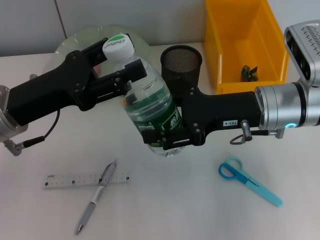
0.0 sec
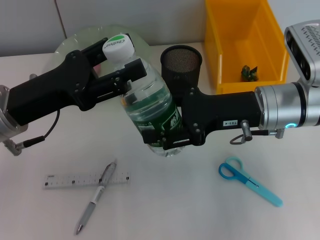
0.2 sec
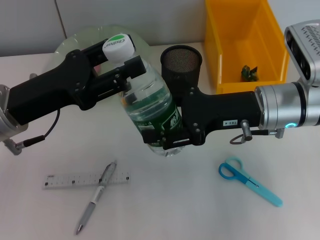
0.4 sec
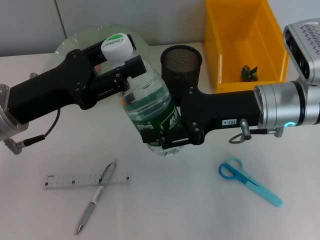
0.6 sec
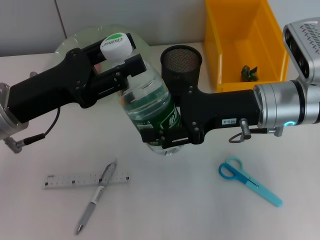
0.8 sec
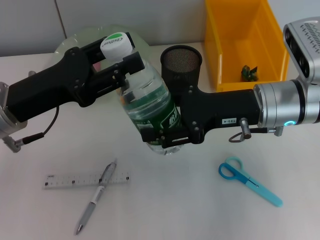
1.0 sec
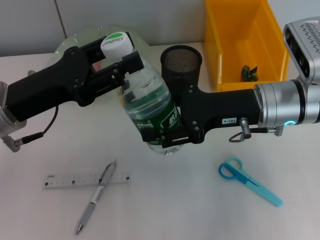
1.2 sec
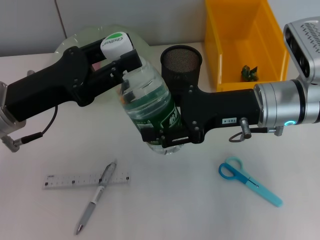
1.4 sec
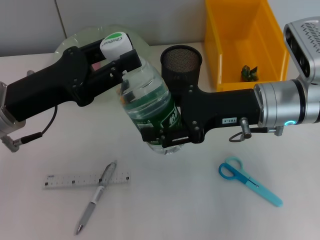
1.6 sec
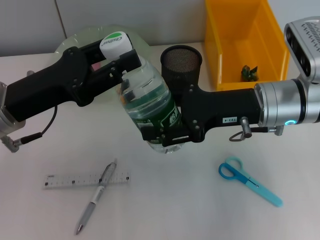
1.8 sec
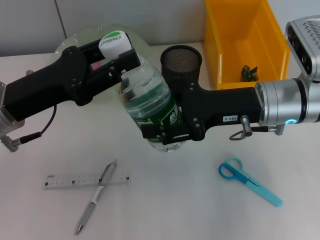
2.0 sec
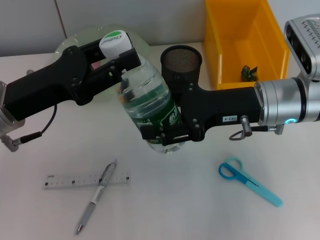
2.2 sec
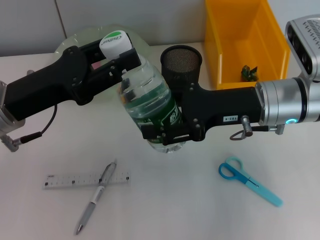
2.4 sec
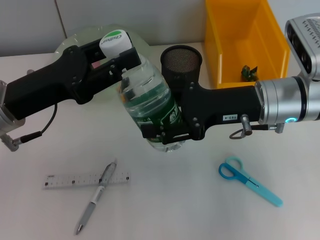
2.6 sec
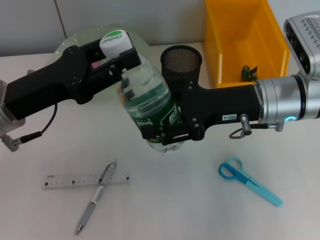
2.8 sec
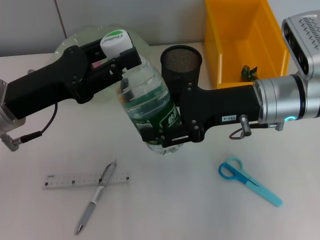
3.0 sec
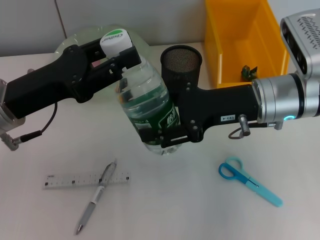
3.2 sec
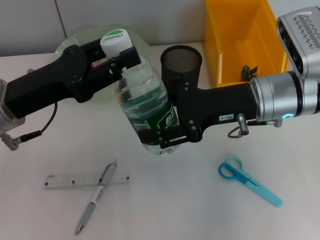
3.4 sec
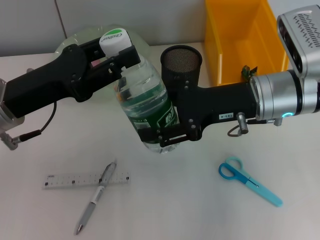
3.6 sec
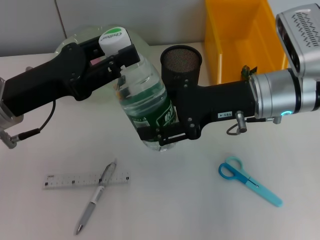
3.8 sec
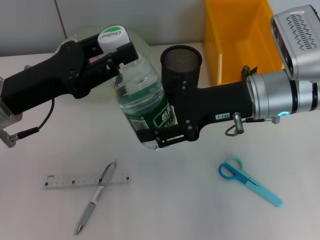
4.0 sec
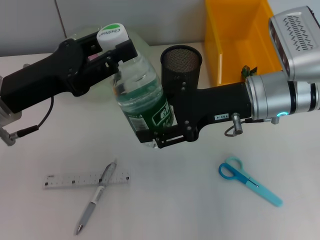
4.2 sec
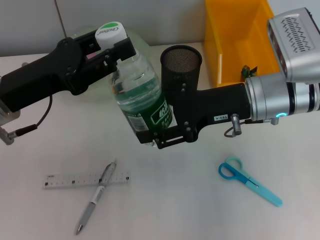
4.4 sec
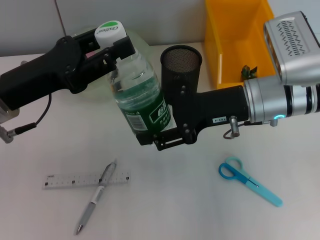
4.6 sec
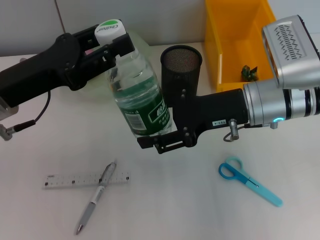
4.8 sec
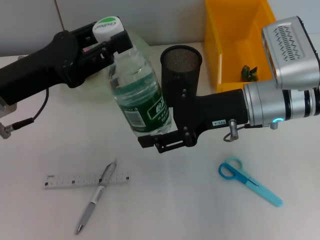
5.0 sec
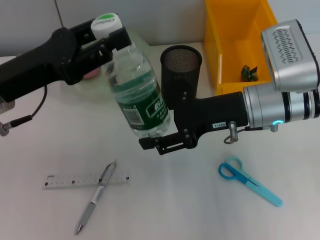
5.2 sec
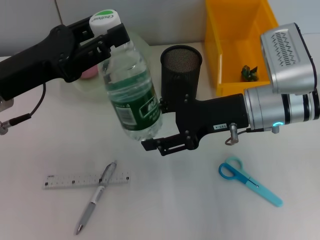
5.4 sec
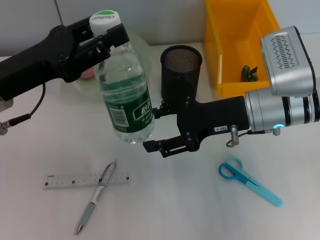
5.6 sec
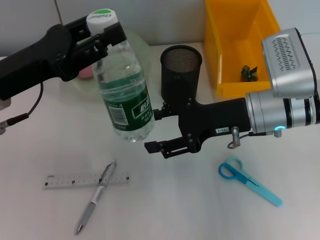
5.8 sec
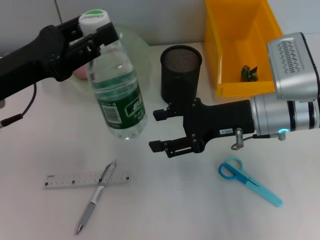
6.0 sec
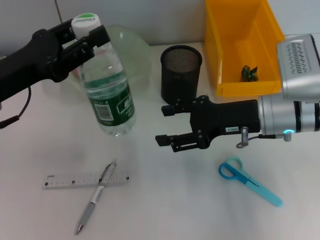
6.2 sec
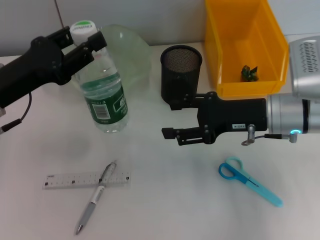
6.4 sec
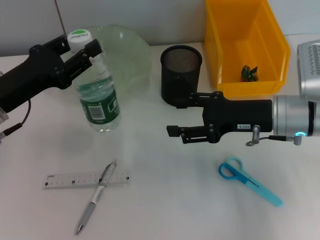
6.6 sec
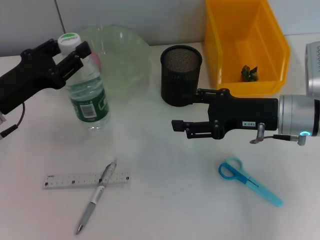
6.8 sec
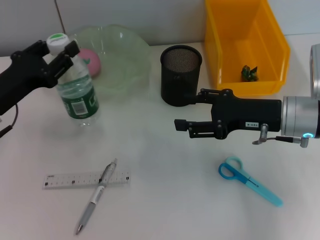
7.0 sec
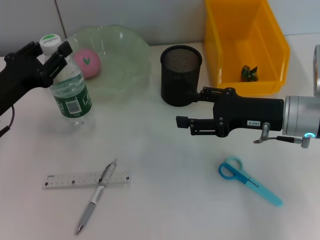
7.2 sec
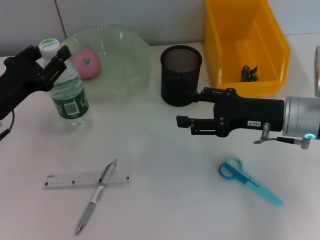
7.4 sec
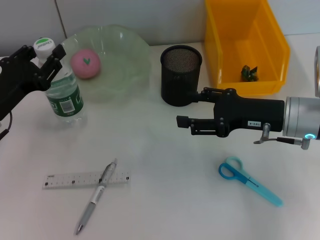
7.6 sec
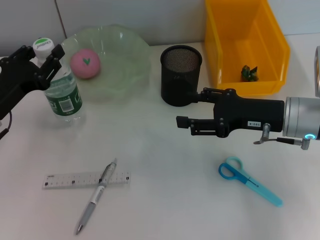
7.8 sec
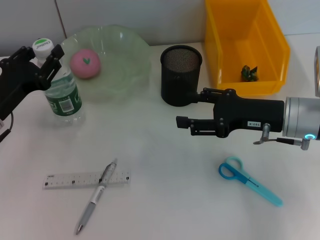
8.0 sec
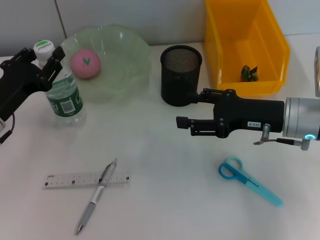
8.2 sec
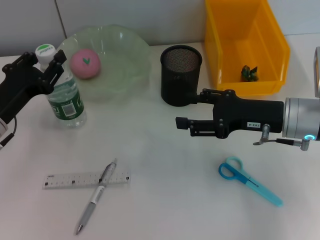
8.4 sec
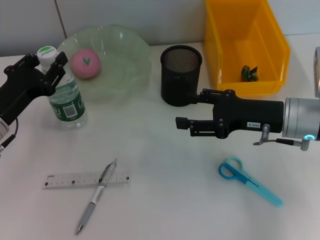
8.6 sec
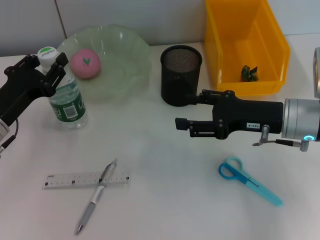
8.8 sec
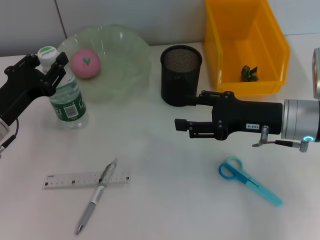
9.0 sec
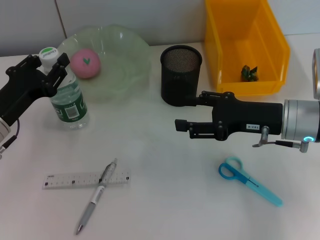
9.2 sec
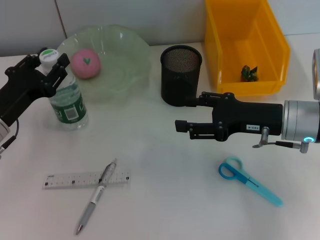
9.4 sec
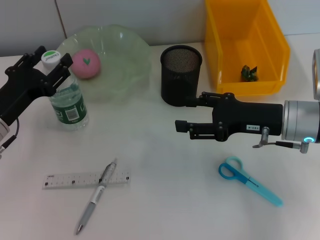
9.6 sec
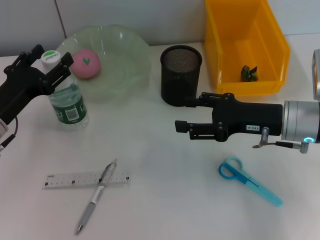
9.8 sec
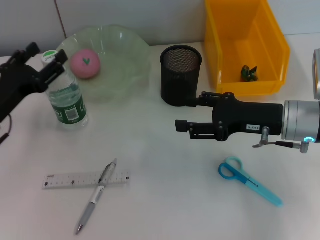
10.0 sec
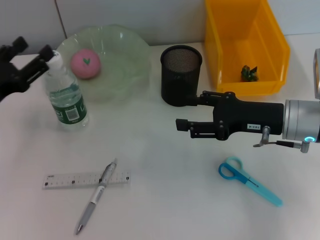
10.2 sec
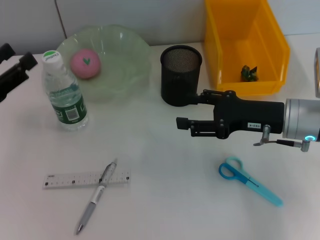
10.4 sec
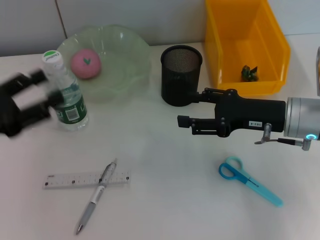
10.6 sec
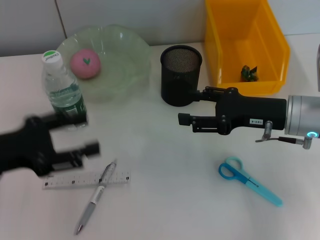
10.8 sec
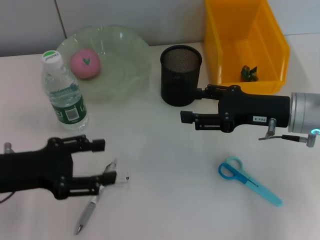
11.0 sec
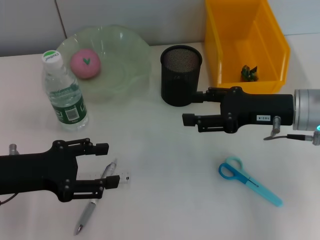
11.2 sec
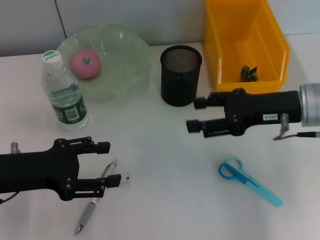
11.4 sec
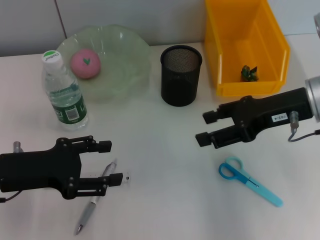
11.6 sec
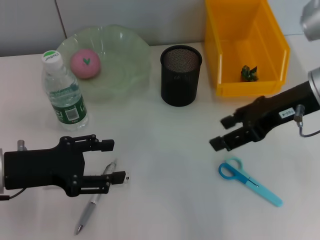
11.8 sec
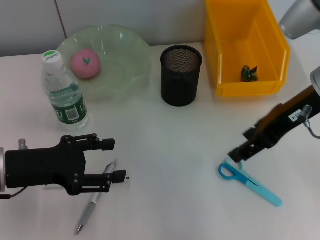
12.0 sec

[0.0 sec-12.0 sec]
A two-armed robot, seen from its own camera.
Step, 0.0 sec to 5.2 sec: Pass the water bottle from the right hand to the left hand.
Step, 5.6 sec to 9.8 sec: Place the water bottle on the table with the left hand.
0.0 sec to 1.6 sec: The left gripper closes its fingers.
1.6 sec to 3.0 sec: Neither gripper changes place.
3.0 sec to 4.4 sec: There are only small adjustments of the grippers.
6.0 sec to 7.6 sec: The left gripper travels downward by some 10 cm.
7.6 sec to 9.0 sec: There are only small adjustments of the grippers.
9.0 sec to 10.4 sec: The left gripper travels to the left by approximately 5 cm, and opens up.
10.4 sec to 12.0 sec: The left gripper heads to the right, covering roughly 5 cm. Meanwhile the right gripper travels upward by roughly 15 cm.

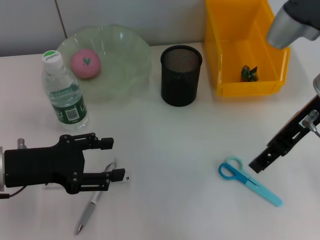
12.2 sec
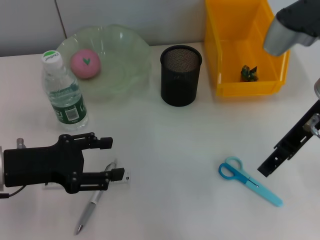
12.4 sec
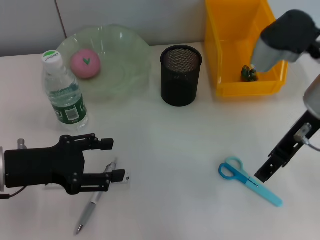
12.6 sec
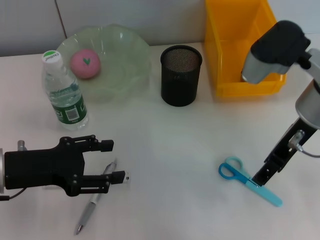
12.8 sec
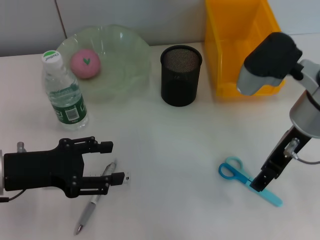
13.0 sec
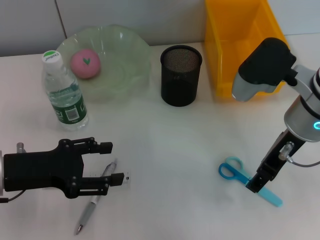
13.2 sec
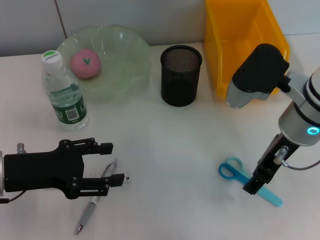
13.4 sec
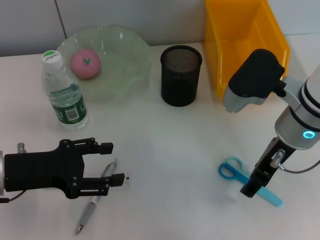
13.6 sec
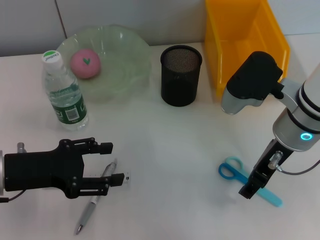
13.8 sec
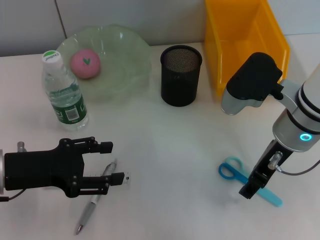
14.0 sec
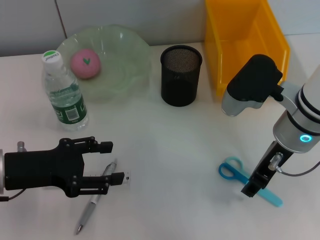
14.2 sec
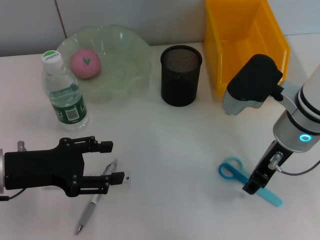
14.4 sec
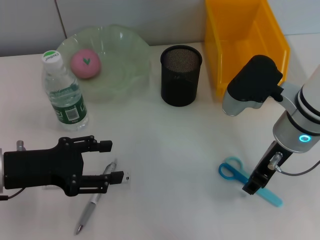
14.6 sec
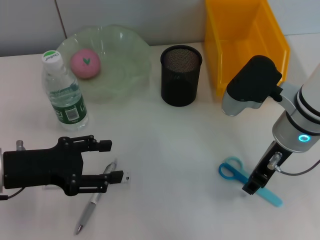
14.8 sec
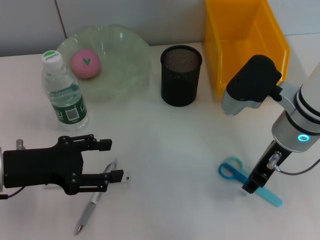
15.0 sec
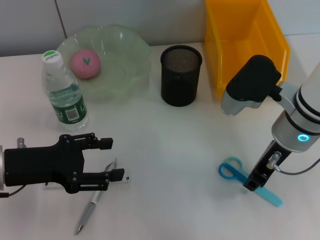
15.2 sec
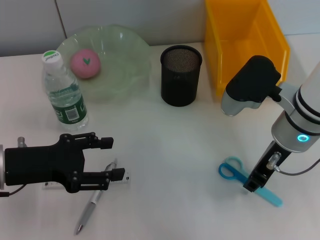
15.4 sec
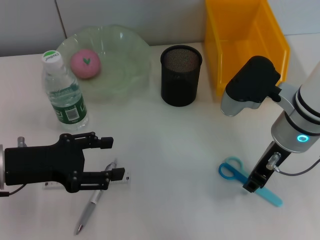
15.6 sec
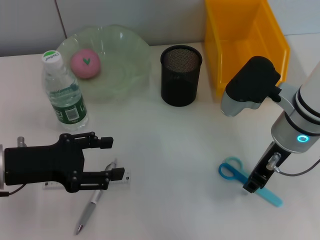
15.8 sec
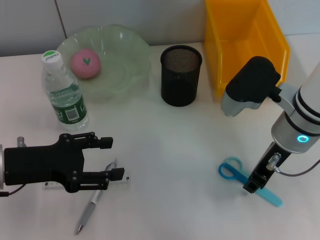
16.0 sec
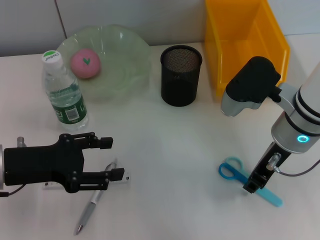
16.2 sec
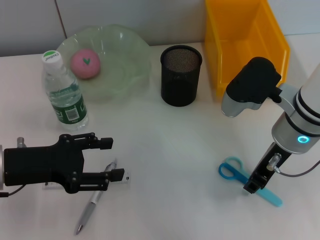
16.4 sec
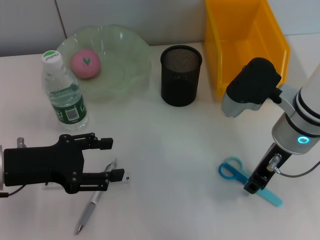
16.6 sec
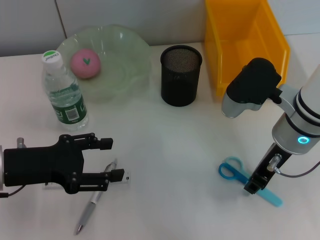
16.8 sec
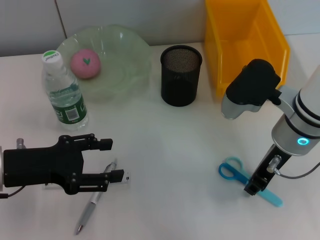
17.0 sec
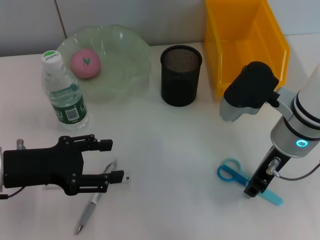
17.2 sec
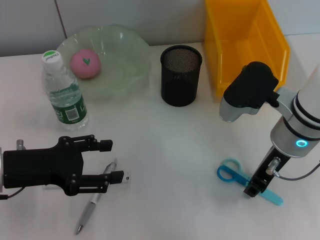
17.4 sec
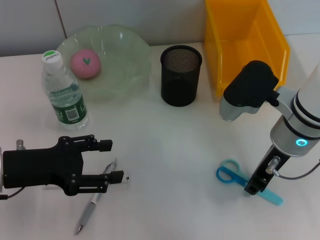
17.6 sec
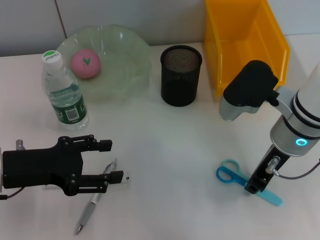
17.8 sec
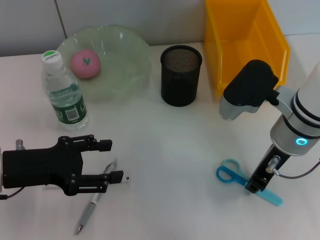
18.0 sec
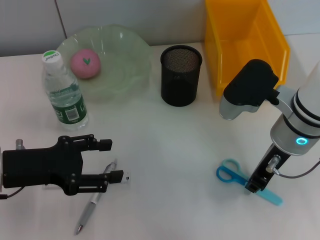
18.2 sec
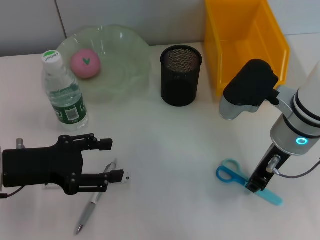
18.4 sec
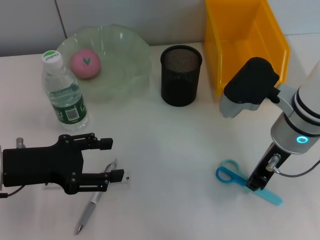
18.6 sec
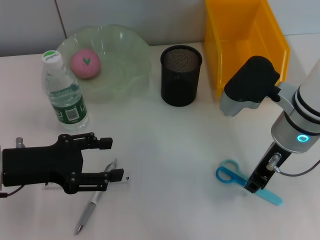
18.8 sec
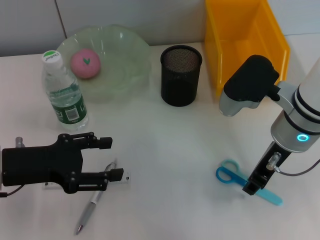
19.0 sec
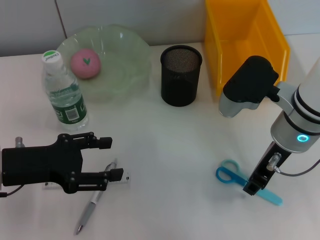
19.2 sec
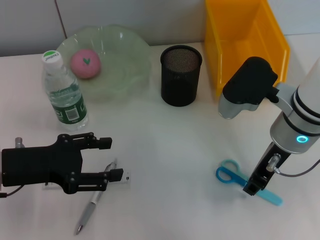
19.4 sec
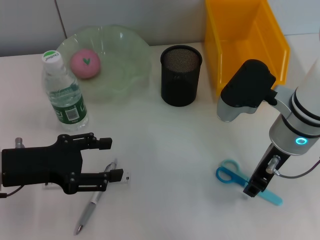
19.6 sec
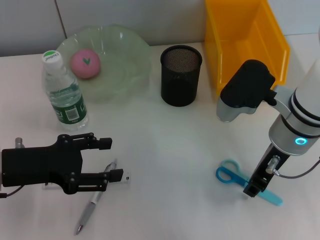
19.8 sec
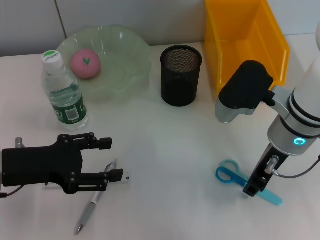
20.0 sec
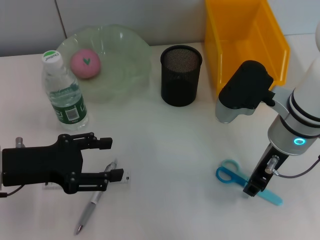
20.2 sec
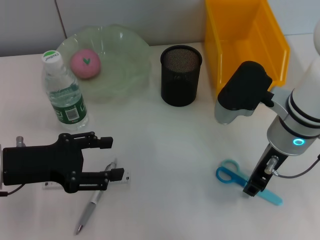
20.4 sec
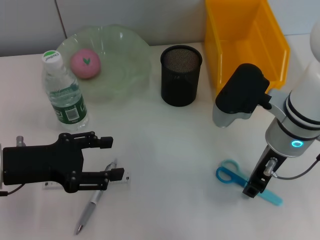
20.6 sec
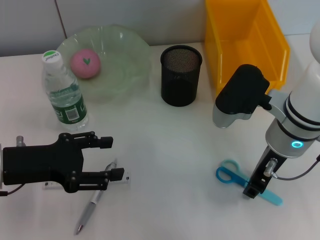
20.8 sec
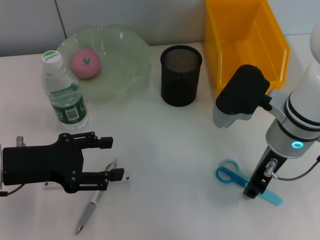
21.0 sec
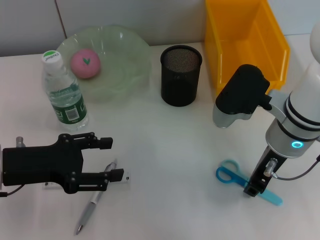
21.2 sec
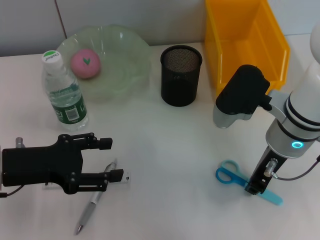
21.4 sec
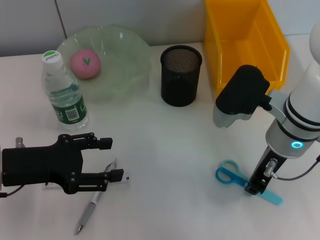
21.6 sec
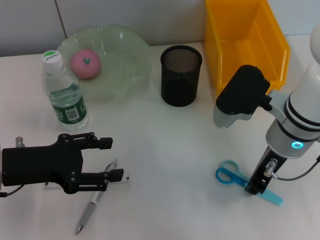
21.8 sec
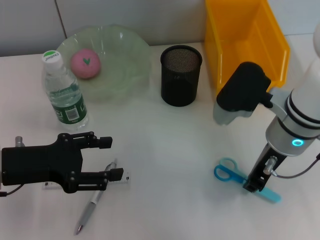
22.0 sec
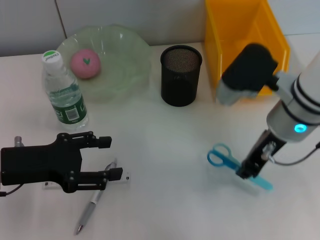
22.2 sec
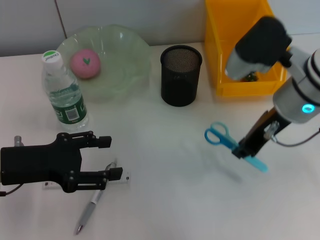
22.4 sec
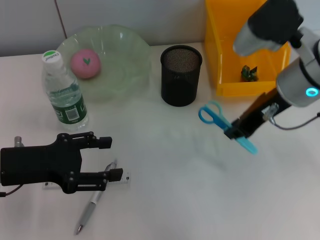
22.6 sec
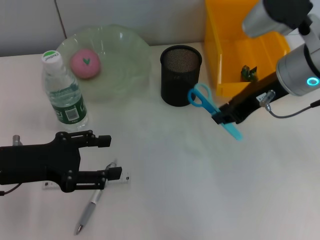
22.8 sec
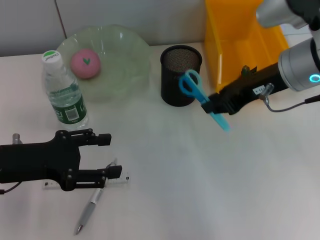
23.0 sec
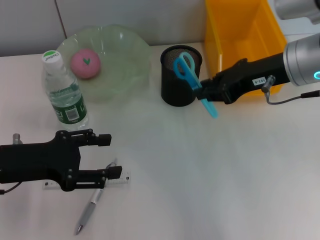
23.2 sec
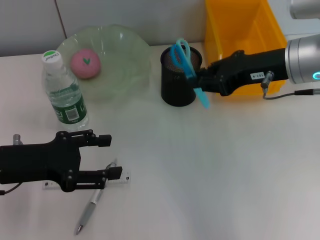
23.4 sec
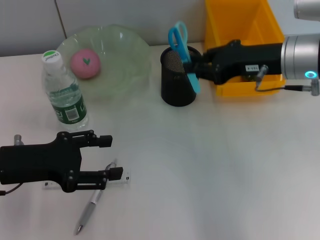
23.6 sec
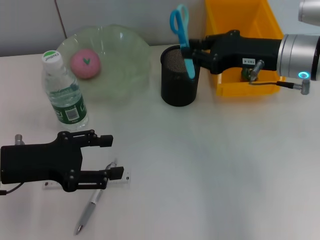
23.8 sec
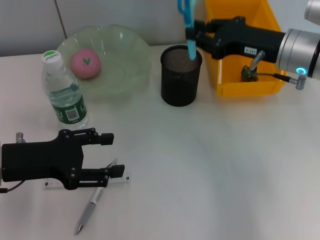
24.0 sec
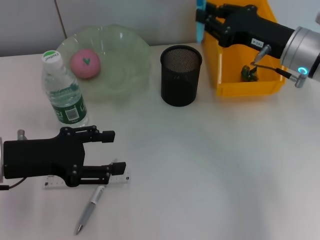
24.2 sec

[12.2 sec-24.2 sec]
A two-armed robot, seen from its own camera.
Step, 12.2 sec to 21.6 sec: Grab the blue scissors with the right hand.
12.2 sec to 13.8 sec: The right gripper moves downward, about 5 cm.
13.8 sec to 15.2 sec: Both grippers stay about where they are.
15.2 sec to 19.8 sec: Both grippers stay about where they are.
19.8 sec to 21.2 sec: Both grippers stay put.
21.2 sec to 22.6 sec: The right gripper shifts roughly 5 cm upward.
22.6 sec to 24.2 sec: The right gripper goes some 5 cm downward.
